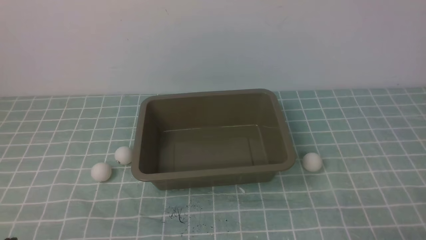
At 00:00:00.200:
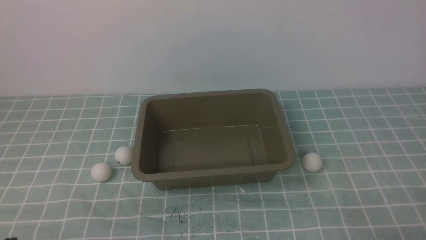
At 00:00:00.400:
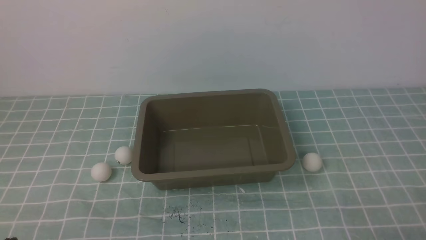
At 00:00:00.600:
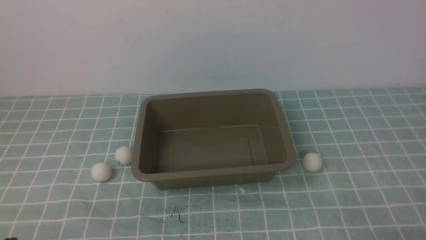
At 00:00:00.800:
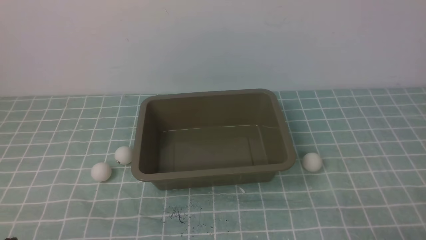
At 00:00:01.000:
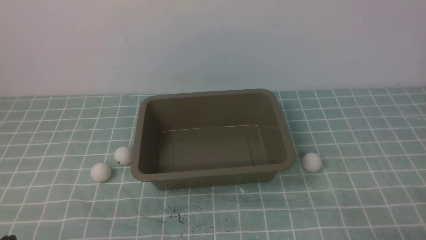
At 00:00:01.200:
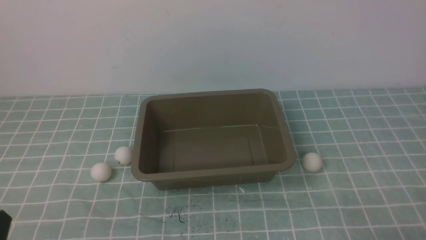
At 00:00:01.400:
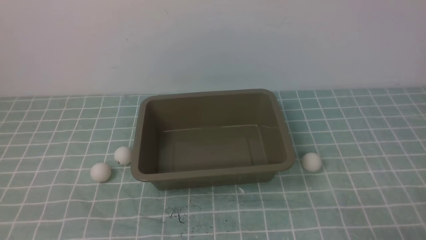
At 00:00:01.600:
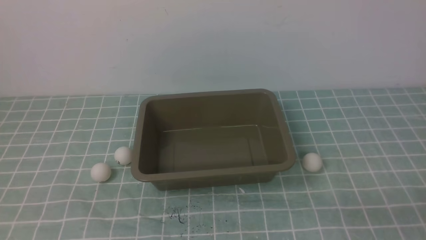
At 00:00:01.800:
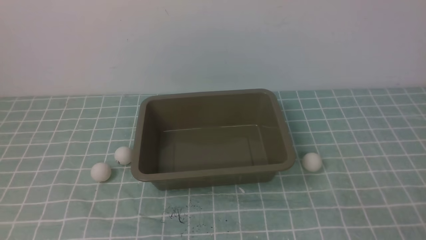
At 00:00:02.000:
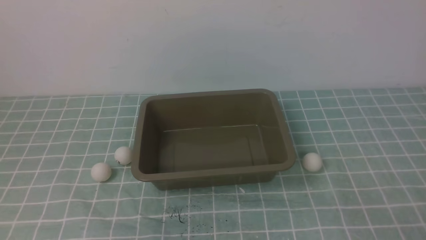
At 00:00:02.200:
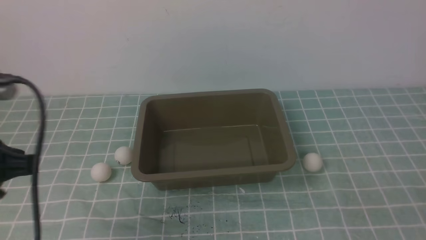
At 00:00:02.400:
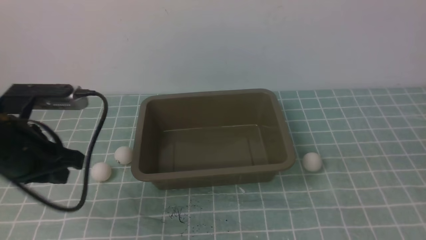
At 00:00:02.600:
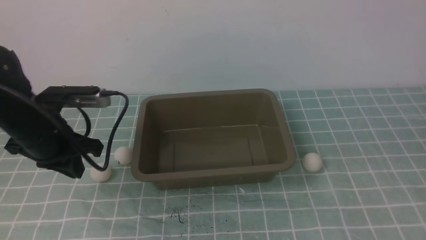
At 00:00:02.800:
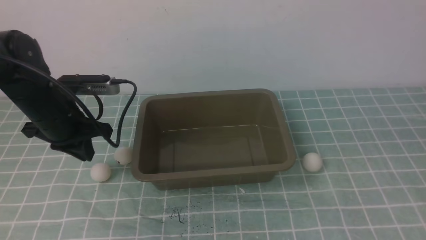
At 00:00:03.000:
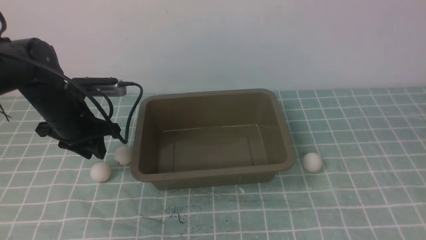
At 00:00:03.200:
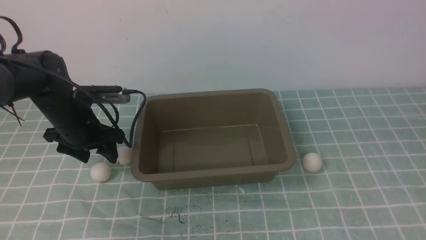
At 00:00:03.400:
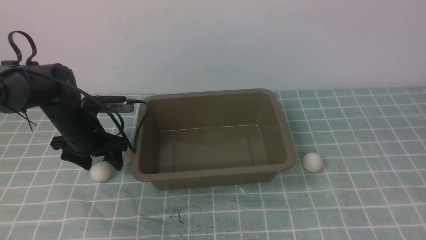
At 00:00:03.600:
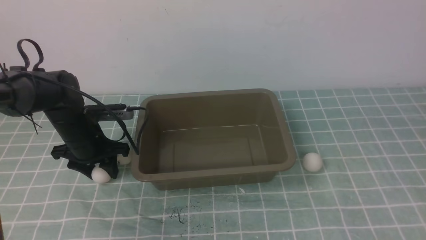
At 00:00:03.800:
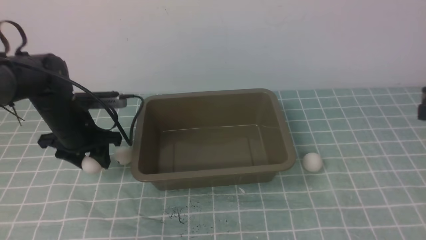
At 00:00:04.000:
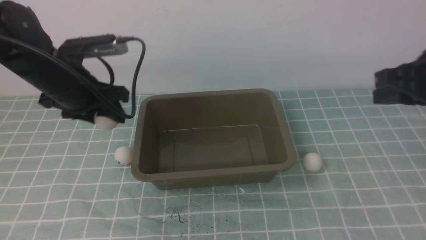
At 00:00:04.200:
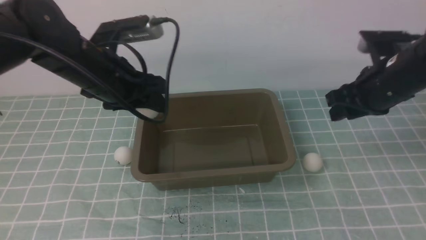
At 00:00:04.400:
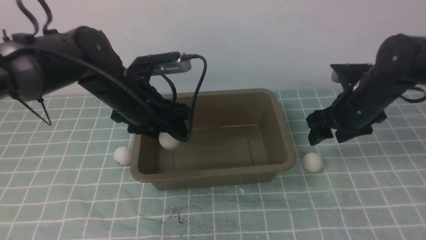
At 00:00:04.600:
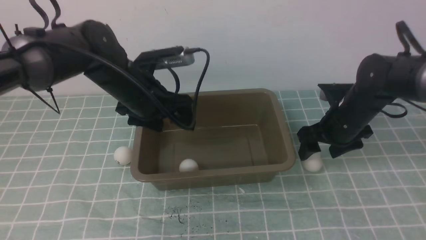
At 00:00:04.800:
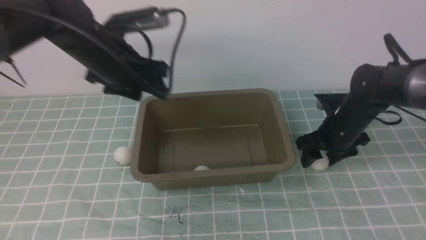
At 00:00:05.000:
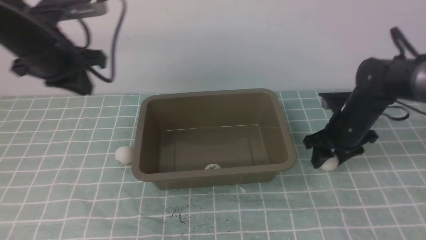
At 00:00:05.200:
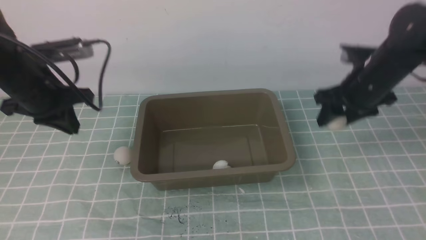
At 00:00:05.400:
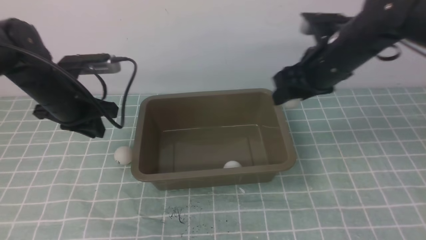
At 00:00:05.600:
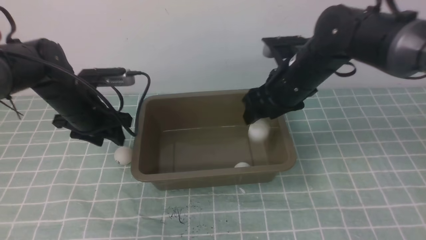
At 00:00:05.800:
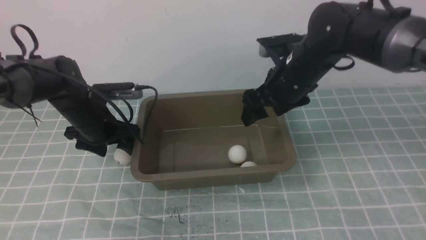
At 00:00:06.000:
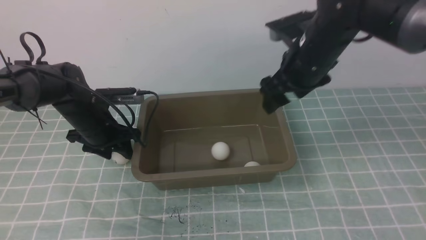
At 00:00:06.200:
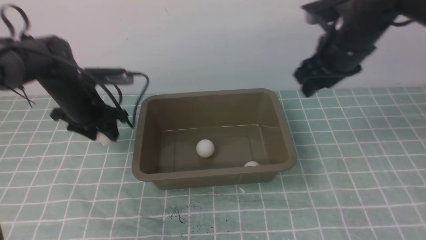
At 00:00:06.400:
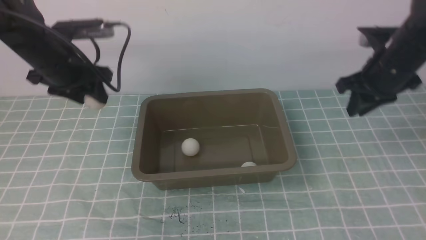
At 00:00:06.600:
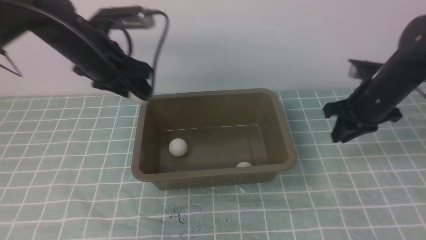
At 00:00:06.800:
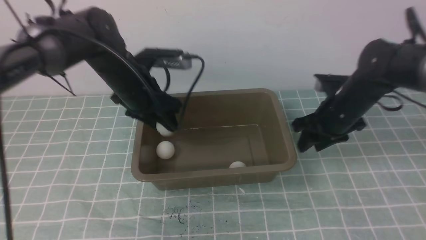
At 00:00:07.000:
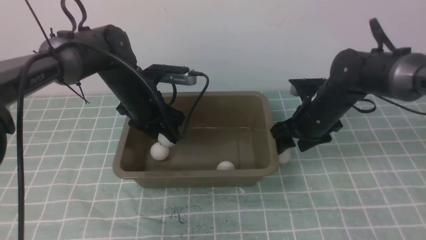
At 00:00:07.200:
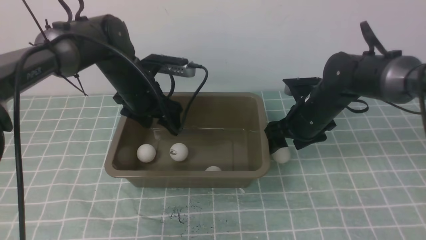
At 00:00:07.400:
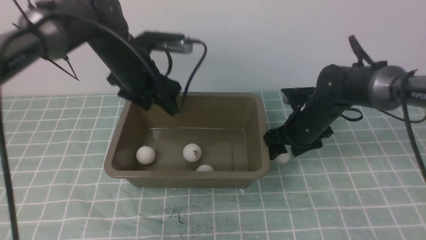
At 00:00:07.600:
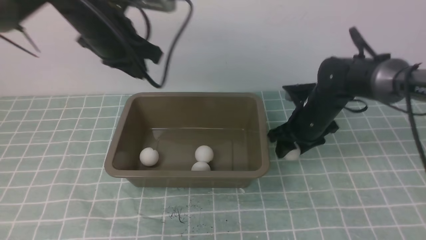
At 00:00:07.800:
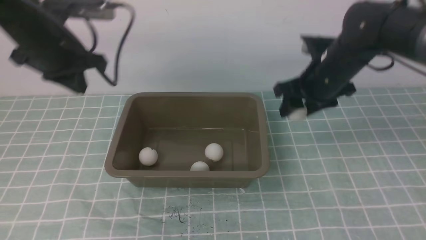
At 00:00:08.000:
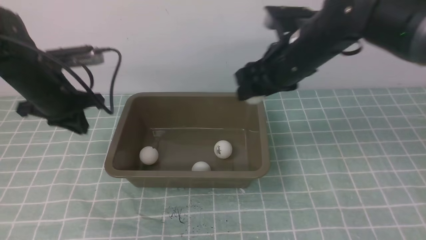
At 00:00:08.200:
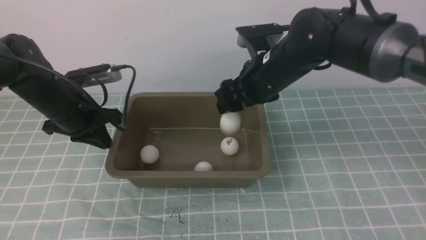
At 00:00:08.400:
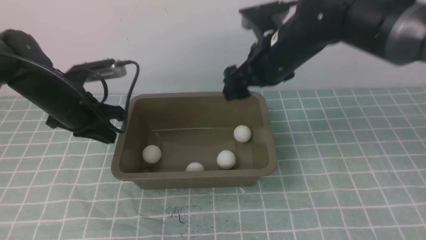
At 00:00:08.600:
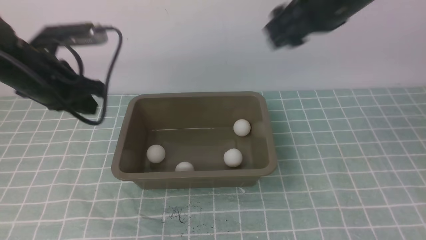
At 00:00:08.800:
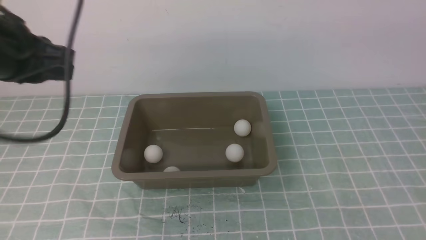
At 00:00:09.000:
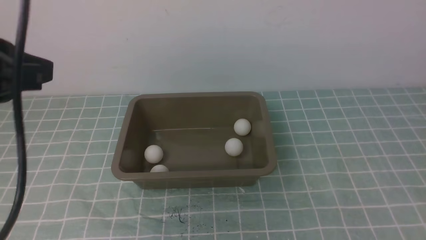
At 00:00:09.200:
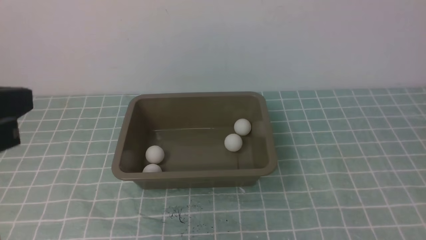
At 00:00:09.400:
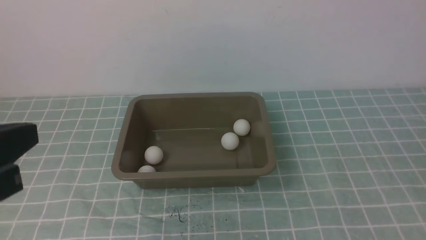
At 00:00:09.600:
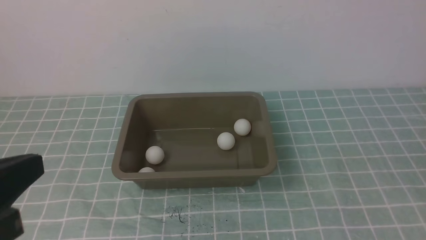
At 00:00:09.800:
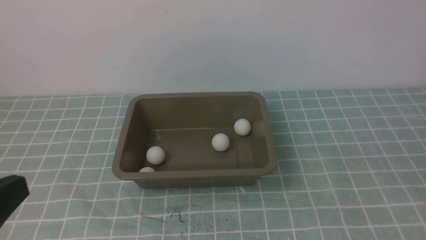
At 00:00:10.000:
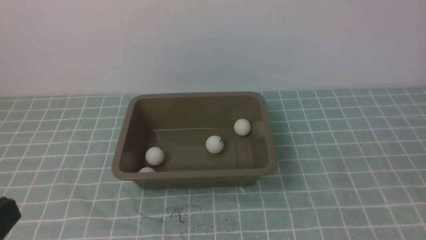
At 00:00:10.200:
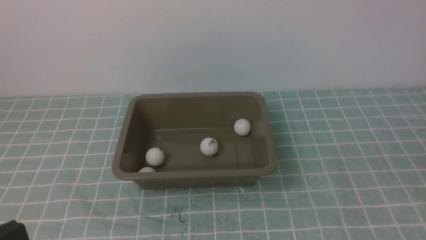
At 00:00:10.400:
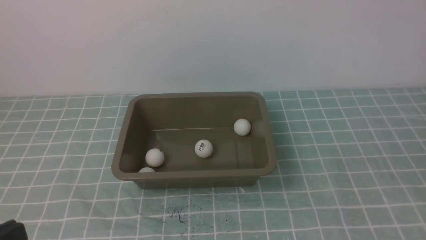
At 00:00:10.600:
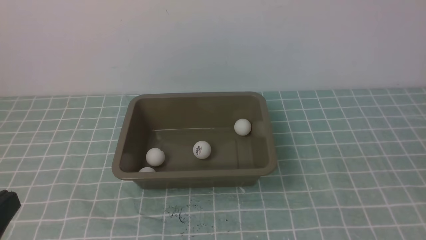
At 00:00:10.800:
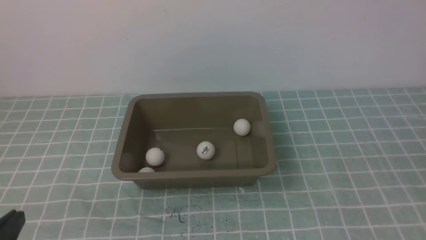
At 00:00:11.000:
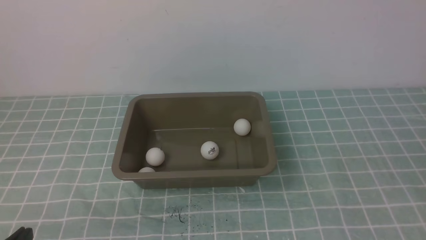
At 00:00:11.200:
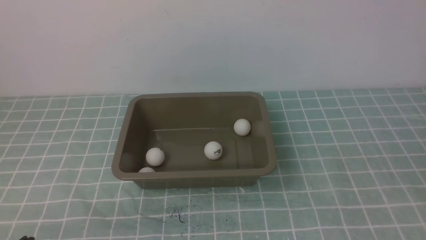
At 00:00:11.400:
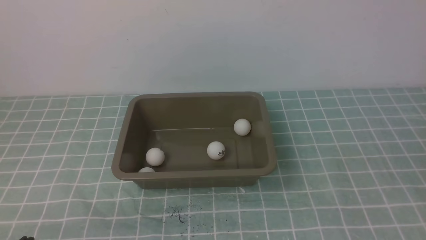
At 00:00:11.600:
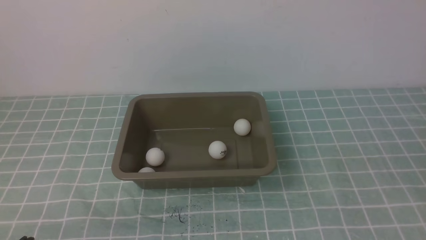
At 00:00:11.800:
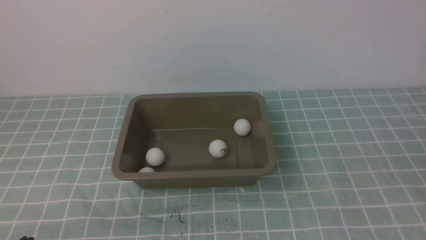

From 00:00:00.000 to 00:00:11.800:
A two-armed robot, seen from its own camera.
Step, from 00:00:00.000 to 00:00:03.800: use the left arm to clamp the table tennis ball closest to it.
Step, from 00:00:04.000 to 00:00:04.400: use the left arm to put the table tennis ball into the box.
Step, from 00:00:04.600 to 00:00:05.000: use the right arm to clamp the table tennis ball closest to it.
Step, from 00:00:05.200 to 00:00:05.800: use the right arm to put the table tennis ball into the box.
Step, from 00:00:06.000 to 00:00:06.200: use the left arm to clamp the table tennis ball closest to it.
Step, from 00:00:06.400 to 00:00:07.000: use the left arm to put the table tennis ball into the box.
Step, from 00:00:07.200 to 00:00:07.600: use the right arm to clamp the table tennis ball closest to it.
Step, from 00:00:07.800 to 00:00:08.400: use the right arm to put the table tennis ball into the box.
From 00:00:01.400 to 00:00:03.000: The left gripper heads forward, covering roughly 30 cm, and opens up, while the right gripper moves upward and forward, approximately 20 cm.
From 00:00:03.000 to 00:00:04.400: The left gripper goes some 10 cm to the right and upward, and opens up. Meanwhile the right gripper moves forward and downward, about 30 cm, and opens its fingers.
From 00:00:04.400 to 00:00:06.000: The right gripper heads upward and to the left, covering approximately 10 cm, while the left gripper goes some 10 cm to the left and downward, and closes, then opens again.
From 00:00:06.000 to 00:00:07.400: The right gripper heads downward, covering about 15 cm, and closes, then reopens, while the left gripper goes up and down, roughly 10 cm each way, reversing 2 times.
From 00:00:07.400 to 00:00:08.800: The right gripper heads upward and backward, covering roughly 40 cm, and closes, while the left gripper travels backward, upward and to the left by some 20 cm, and closes.
From 00:00:08.800 to 00:00:10.400: The left gripper travels backward by approximately 25 cm; the right gripper is displaced backward, downward and to the right by some 25 cm.
From 00:00:10.400 to 00:00:11.800: The left gripper travels downward by some 15 cm.

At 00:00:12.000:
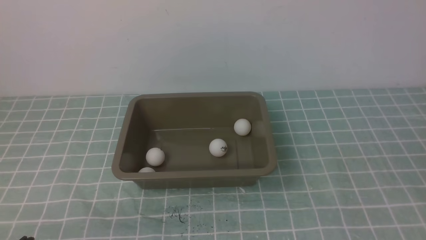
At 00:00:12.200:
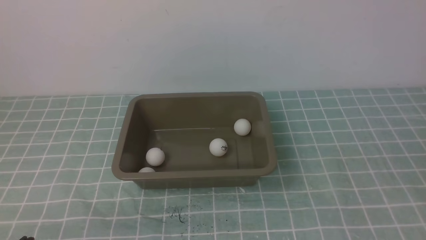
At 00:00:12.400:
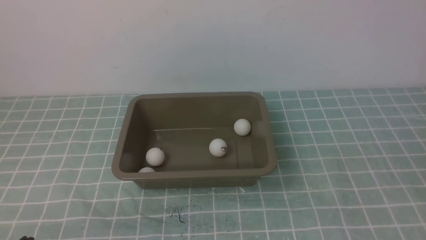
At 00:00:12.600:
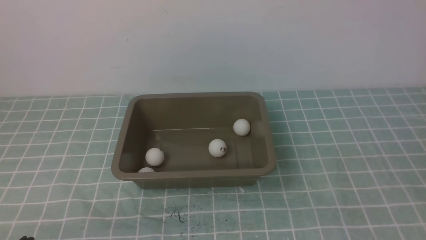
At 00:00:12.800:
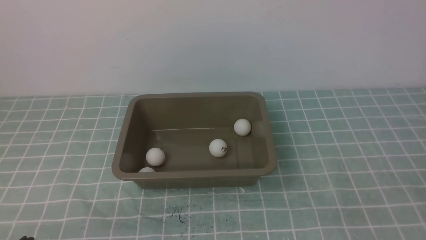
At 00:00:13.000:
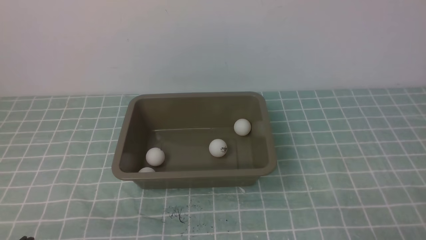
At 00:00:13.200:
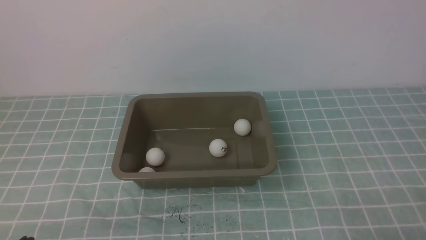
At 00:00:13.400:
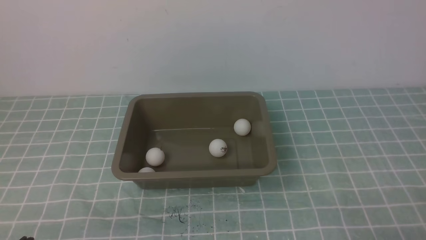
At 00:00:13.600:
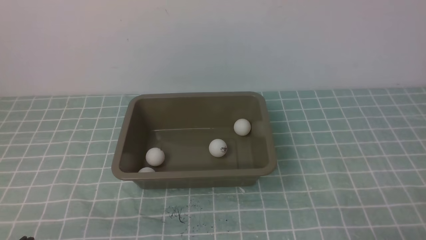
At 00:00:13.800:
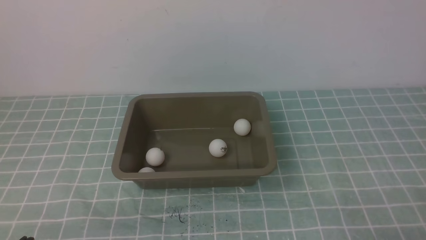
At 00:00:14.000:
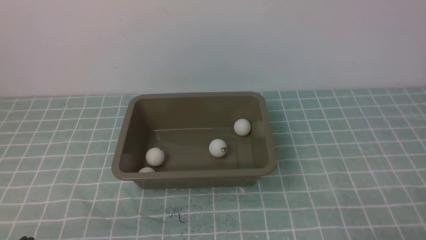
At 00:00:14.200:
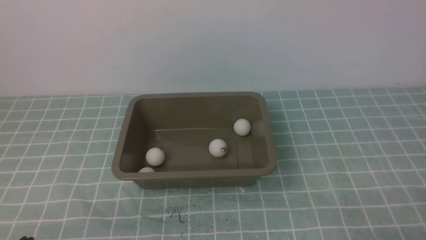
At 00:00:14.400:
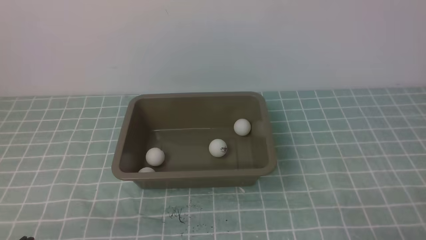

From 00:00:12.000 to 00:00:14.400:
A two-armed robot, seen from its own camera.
From 00:00:13.200 to 00:00:14.400: Neither gripper changes place.
